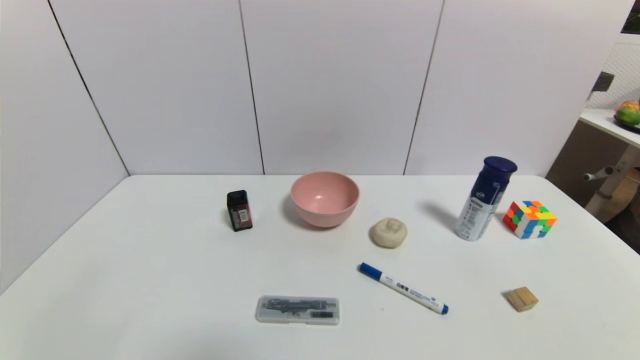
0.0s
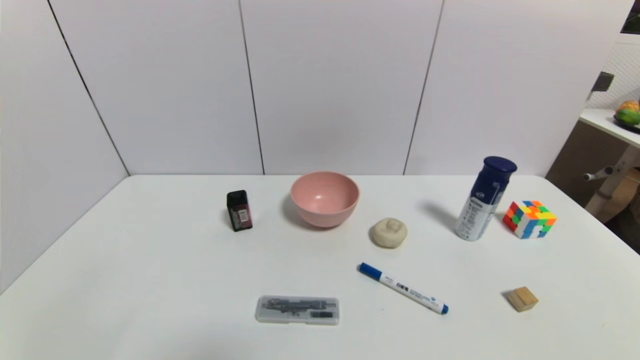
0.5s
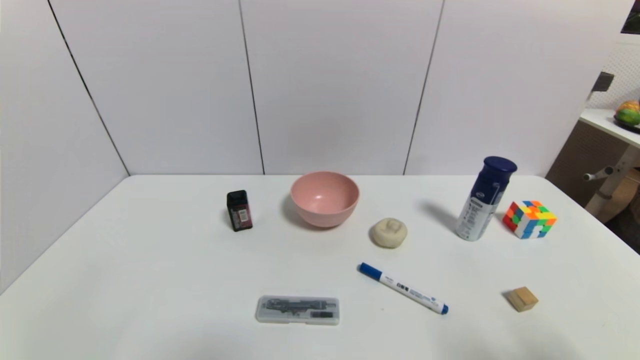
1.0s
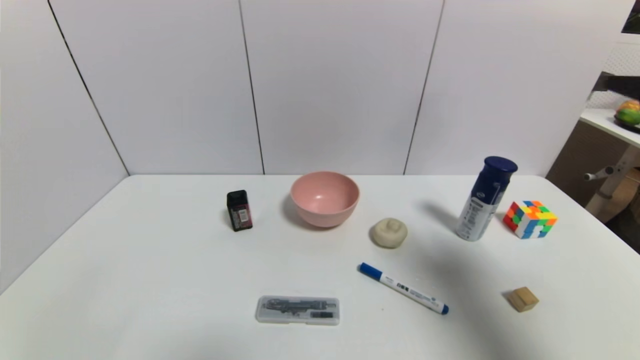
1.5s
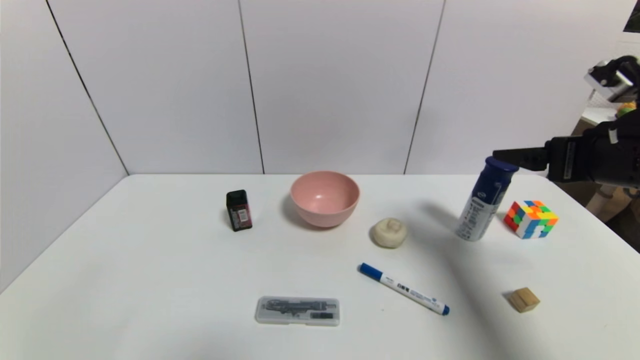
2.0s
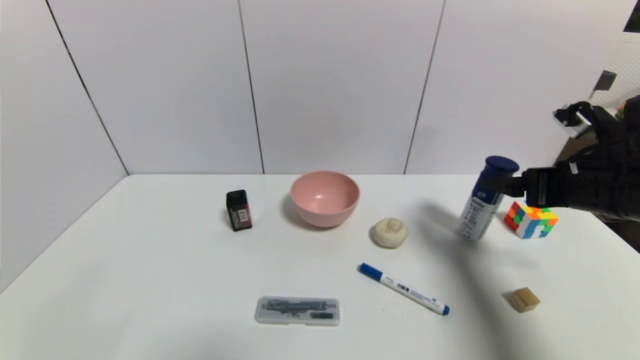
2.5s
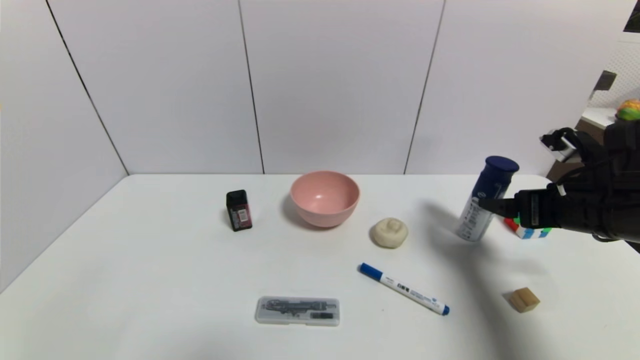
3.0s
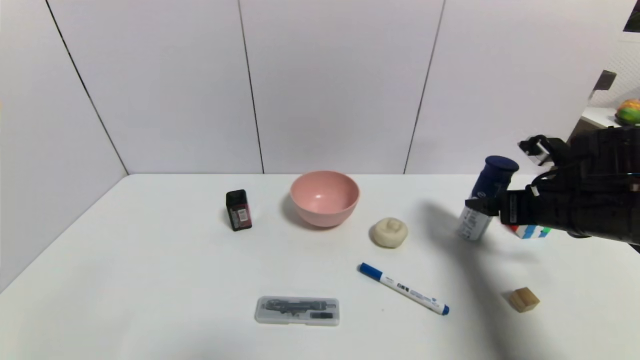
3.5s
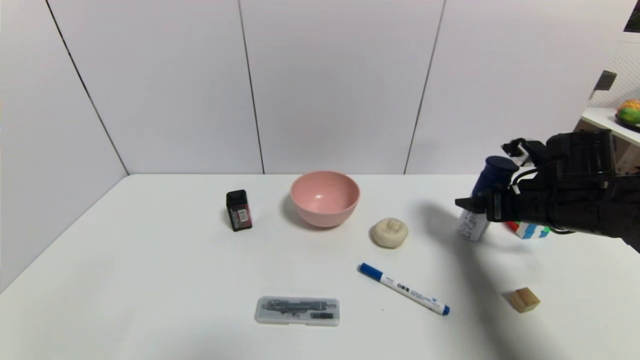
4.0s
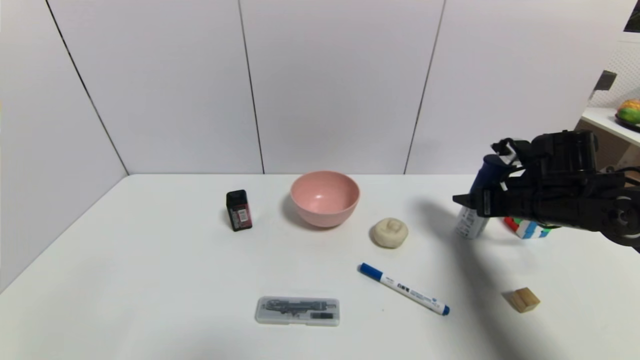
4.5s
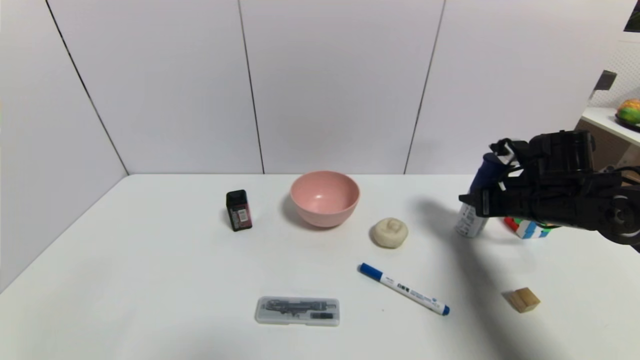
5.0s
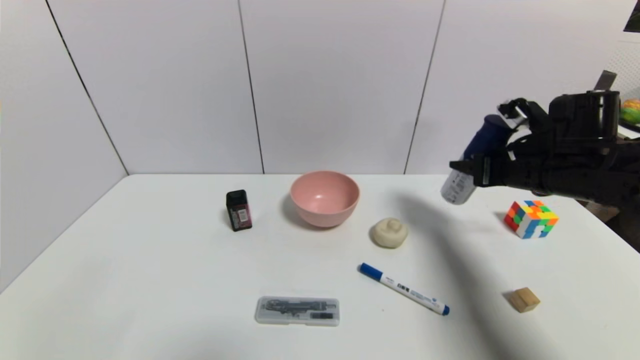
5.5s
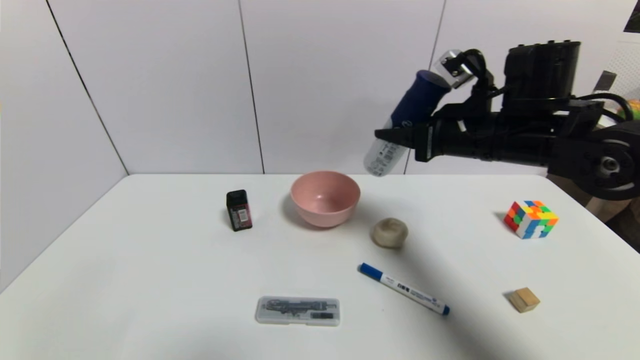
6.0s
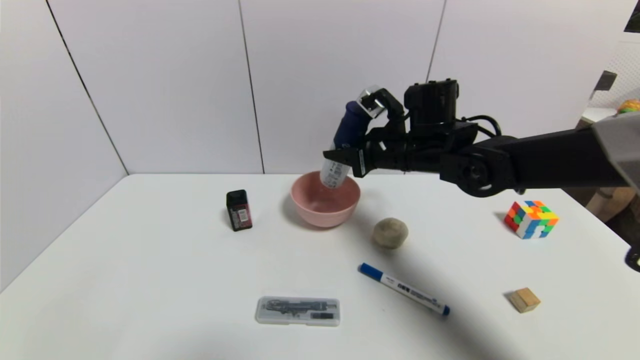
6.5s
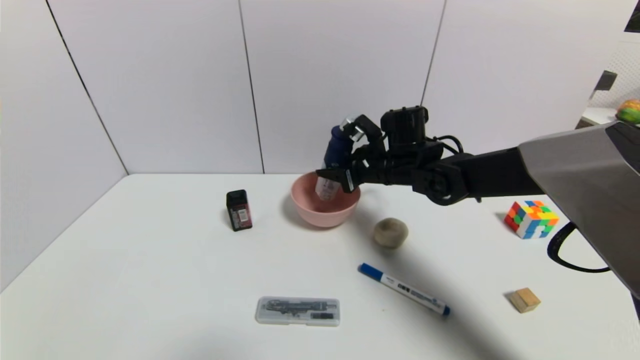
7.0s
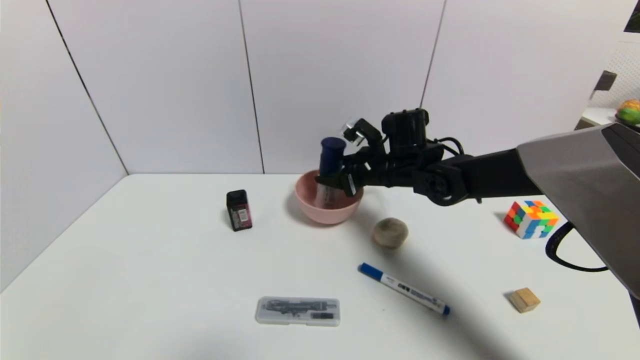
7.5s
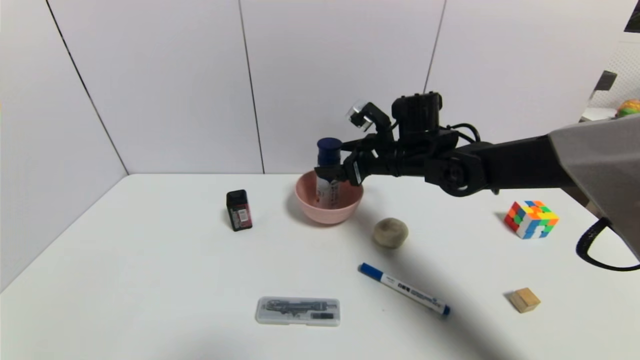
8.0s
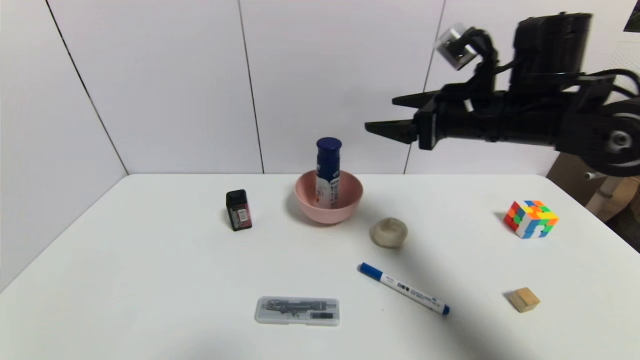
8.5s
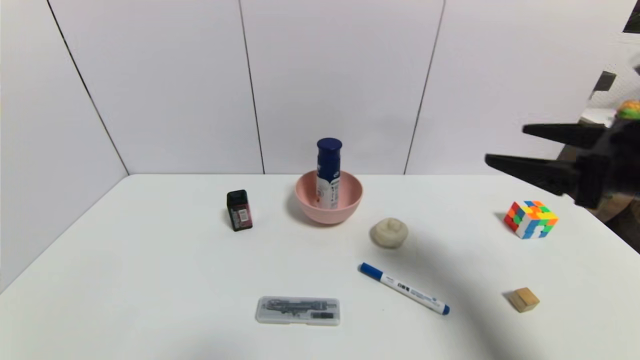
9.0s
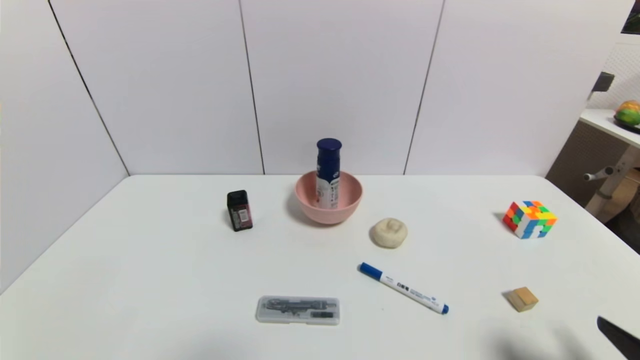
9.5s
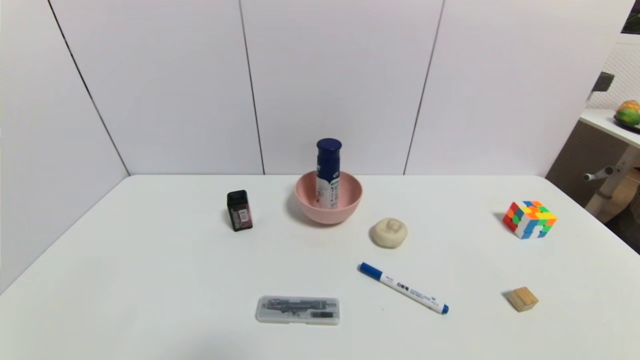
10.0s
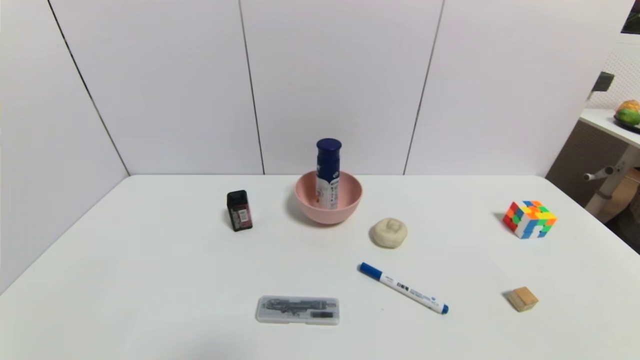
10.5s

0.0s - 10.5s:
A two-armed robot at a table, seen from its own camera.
Task of the whole recording: use a gripper to pick the target object and place on the pink bowl.
Step, 0.0s - 4.5s: Grasp the yogurt with the right gripper.
Step, 5.0s - 8.5s: Place the yogurt on the pink bowl with the right gripper.
0.0s - 2.0s: The right gripper goes roughly 30 cm forward and upward.
2.0s - 4.0s: The right gripper heads downward and forward, covering about 10 cm.
4.0s - 6.5s: The right gripper is displaced to the left and forward by approximately 20 cm, and closes up.
6.5s - 8.5s: The right gripper goes about 10 cm to the right, upward and backward, and opens its fingers.
8.5s - 10.5s: The right gripper goes about 40 cm backward, downward and to the right.
